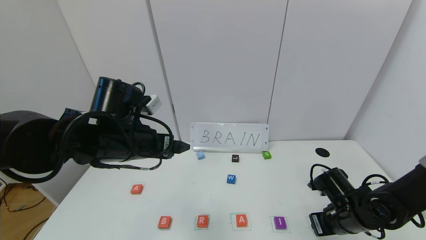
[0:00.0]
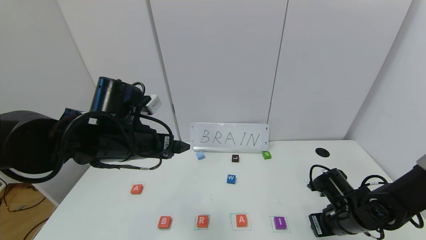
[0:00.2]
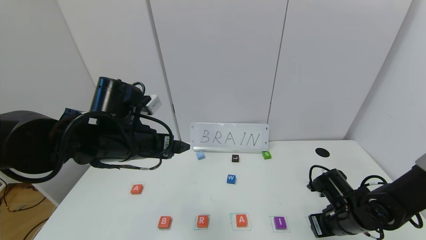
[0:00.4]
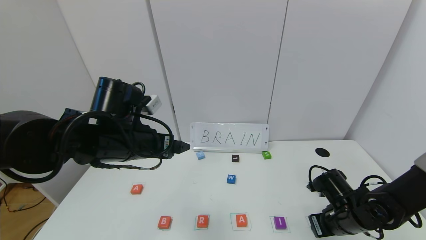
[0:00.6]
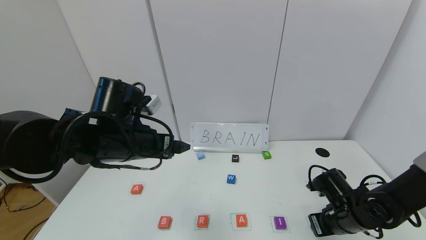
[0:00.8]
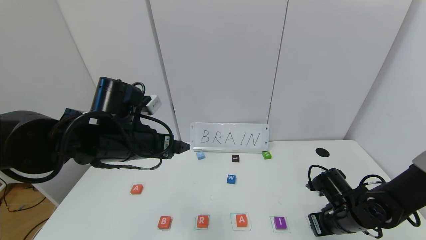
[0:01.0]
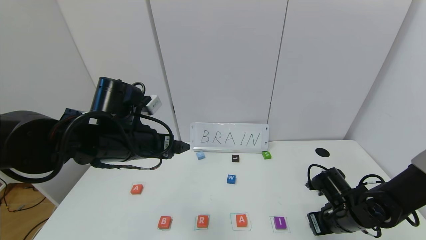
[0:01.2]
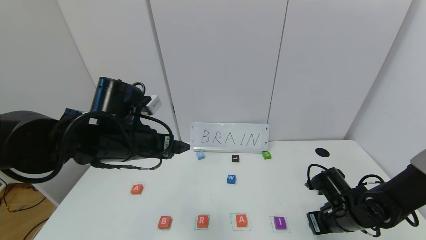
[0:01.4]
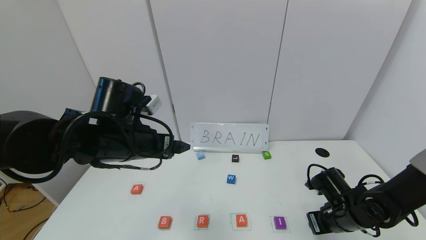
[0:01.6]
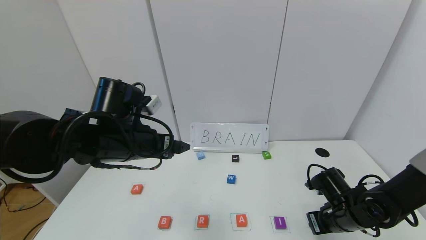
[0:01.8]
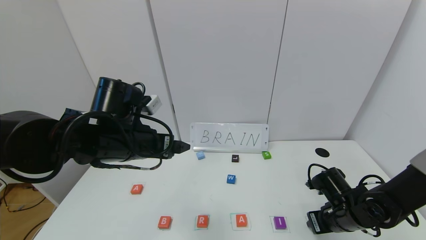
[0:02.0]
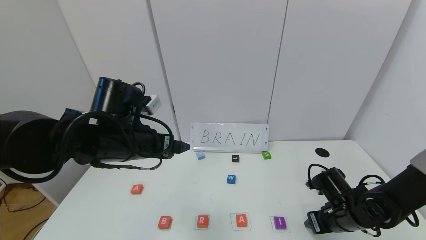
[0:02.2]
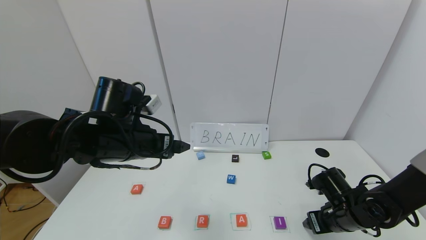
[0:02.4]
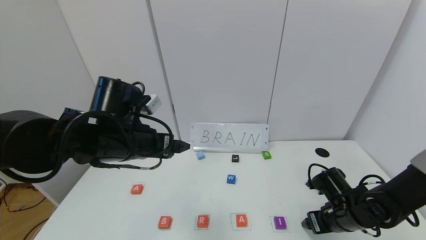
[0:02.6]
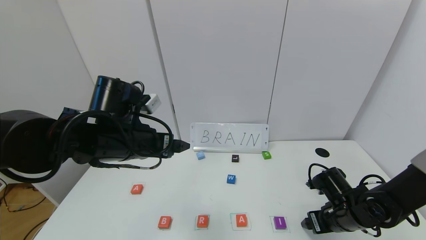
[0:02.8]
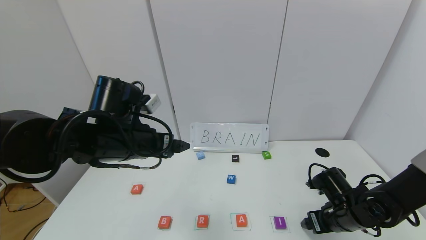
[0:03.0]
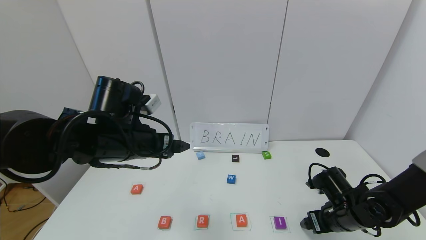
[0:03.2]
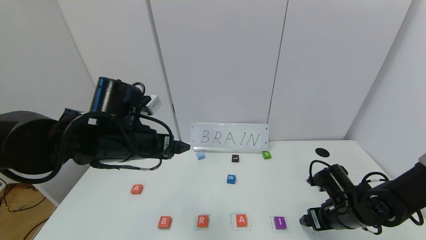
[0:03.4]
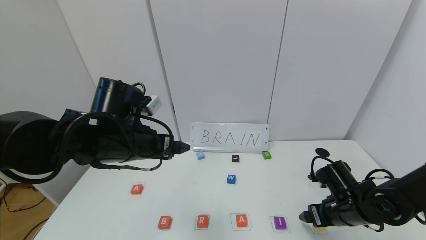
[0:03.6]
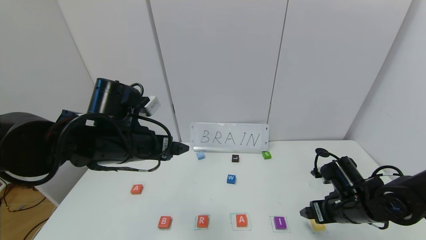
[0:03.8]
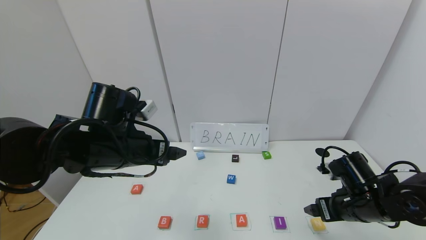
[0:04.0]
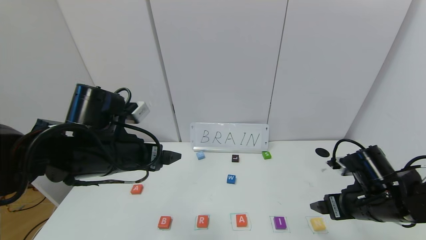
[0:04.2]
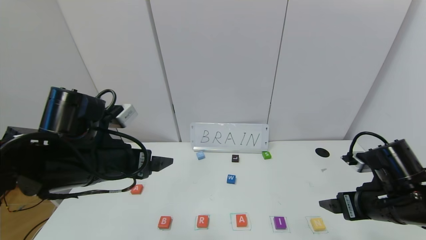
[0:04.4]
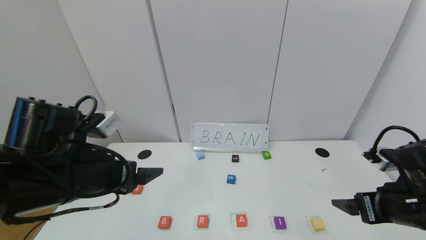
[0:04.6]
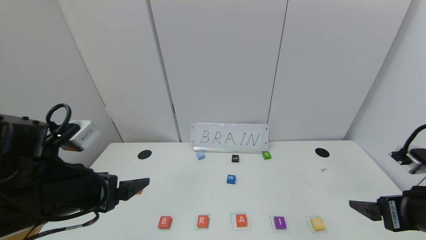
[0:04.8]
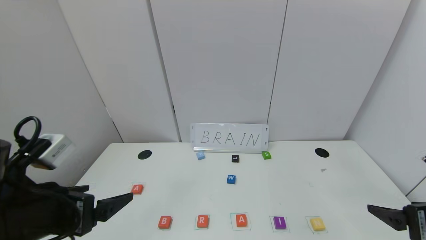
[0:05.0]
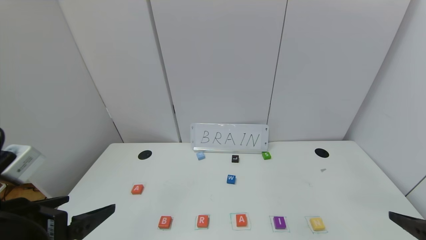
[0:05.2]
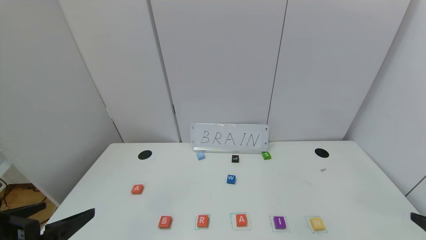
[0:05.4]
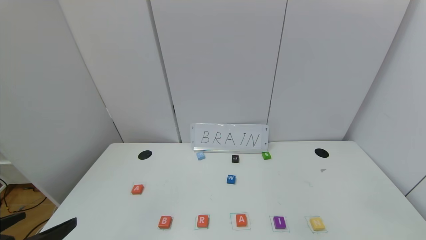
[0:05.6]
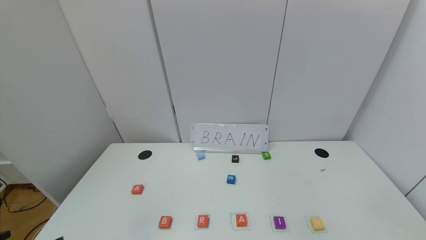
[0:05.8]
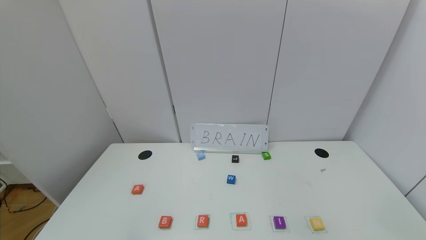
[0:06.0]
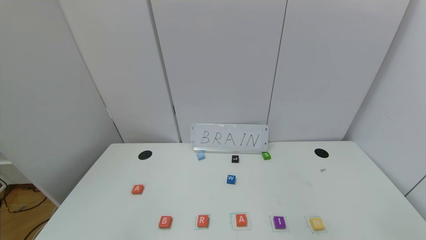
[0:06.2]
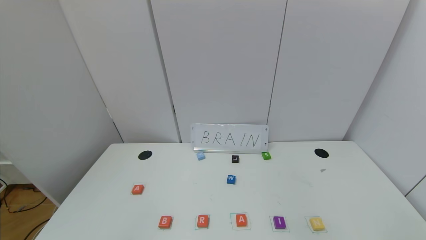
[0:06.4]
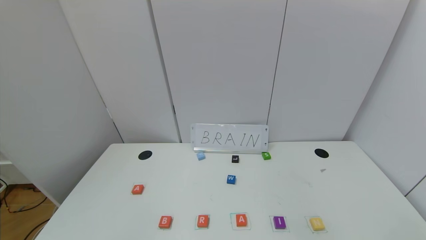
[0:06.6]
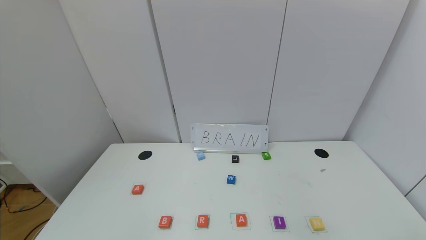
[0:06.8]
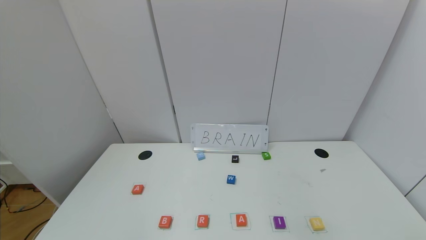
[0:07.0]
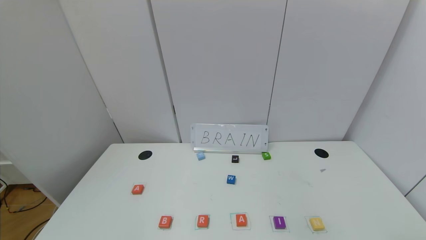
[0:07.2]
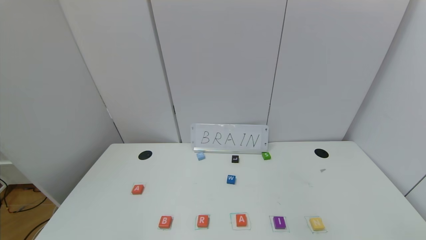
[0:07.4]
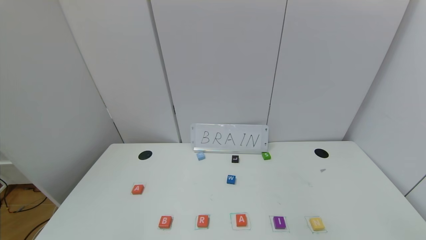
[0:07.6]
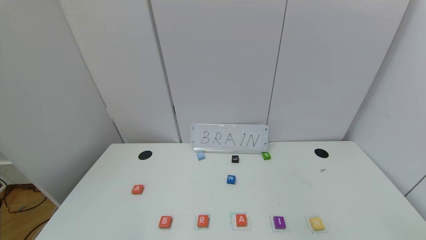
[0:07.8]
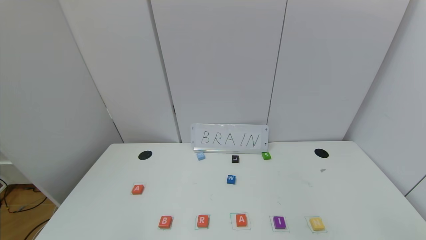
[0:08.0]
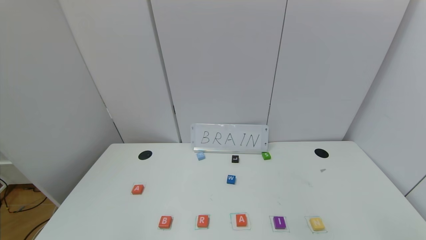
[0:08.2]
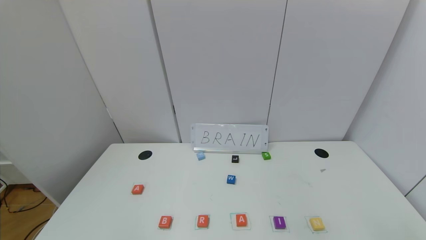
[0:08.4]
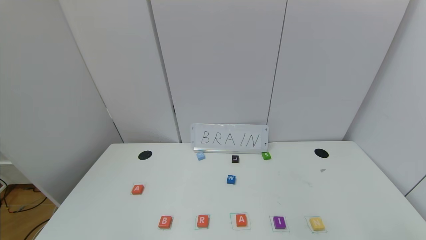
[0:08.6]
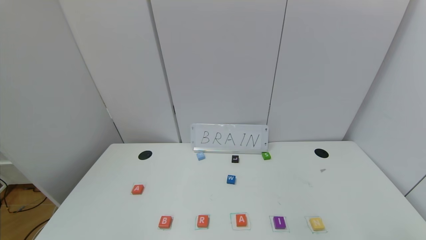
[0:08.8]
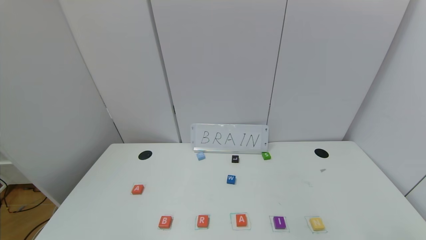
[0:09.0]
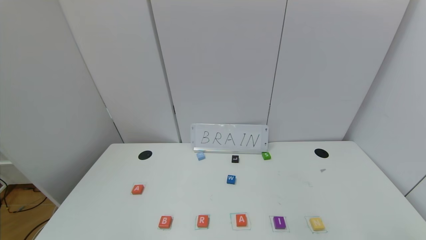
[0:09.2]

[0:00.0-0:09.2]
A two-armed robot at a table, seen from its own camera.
Task of the whole recording: use the gripper to find blocks with the letters b, a, a, and i on the table and arrange them into BAAI, then find r and N and turn the arranged baai into brian.
Step, 0:00.0 to 0:02.2: Place the block N in the fifth location.
0:00.0 to 0:01.6: The two grippers keep their place.
0:01.6 to 0:03.0: The right gripper opens its fingers.
0:03.0 to 0:04.6: The left gripper heads backward, covering about 10 cm. Meanwhile the right gripper is displaced upward and backward by some 15 cm.
0:04.6 to 0:06.2: The right gripper travels backward by approximately 20 cm; the left gripper goes some 20 cm backward and to the left.
